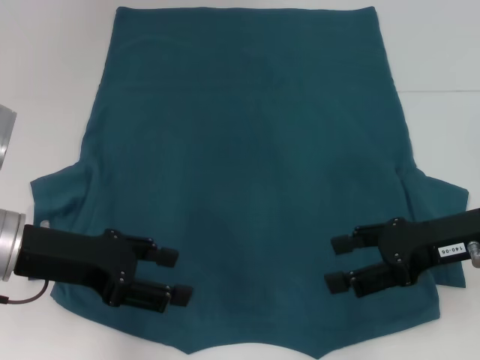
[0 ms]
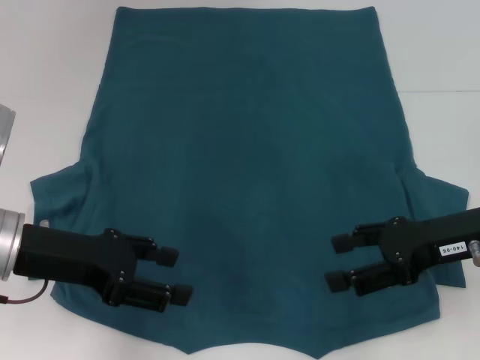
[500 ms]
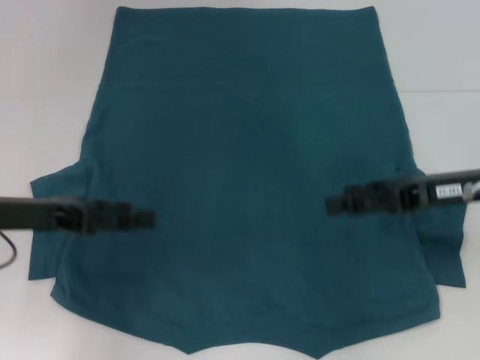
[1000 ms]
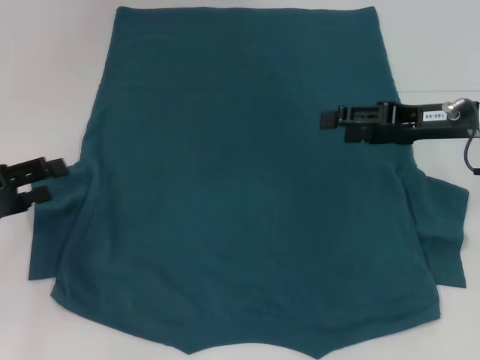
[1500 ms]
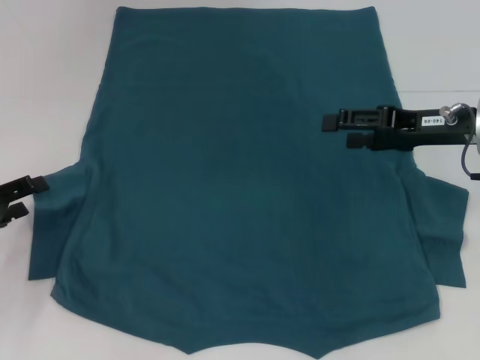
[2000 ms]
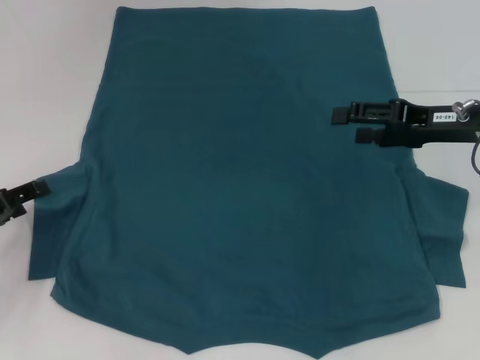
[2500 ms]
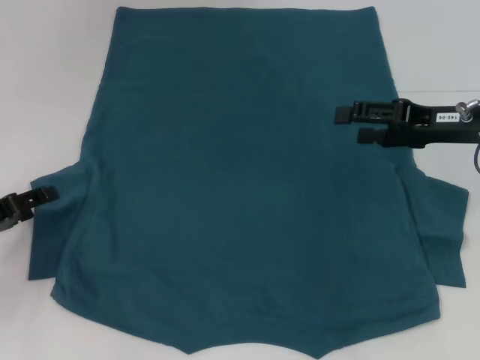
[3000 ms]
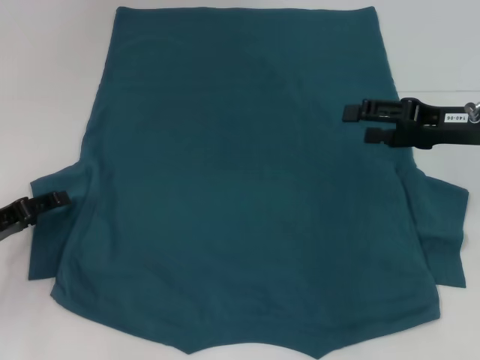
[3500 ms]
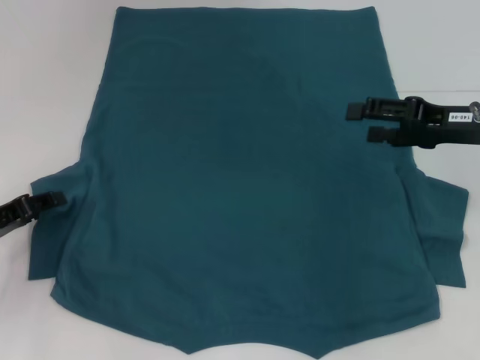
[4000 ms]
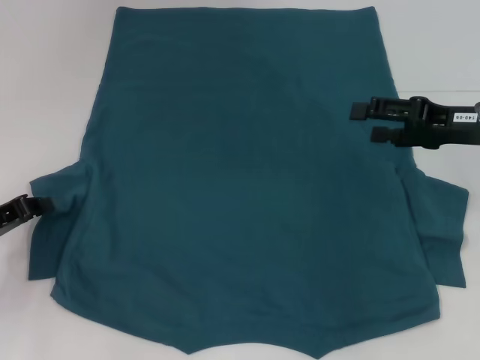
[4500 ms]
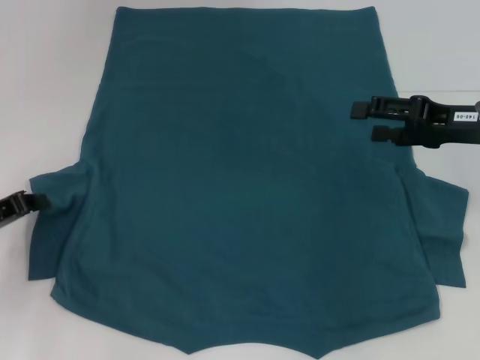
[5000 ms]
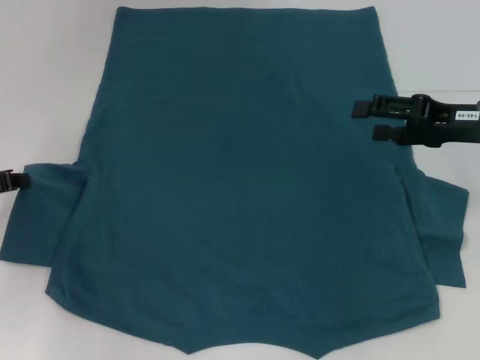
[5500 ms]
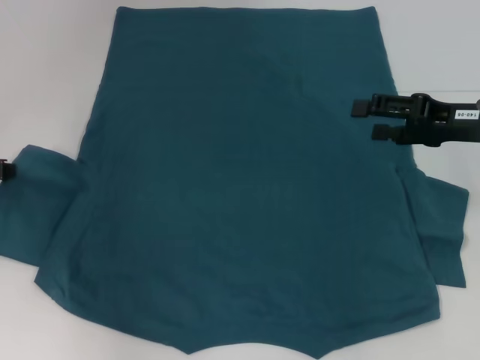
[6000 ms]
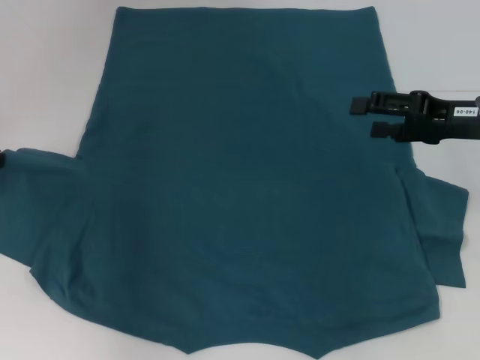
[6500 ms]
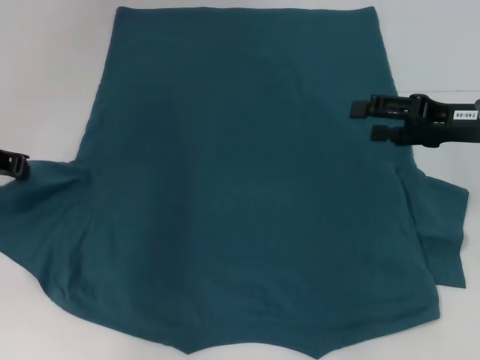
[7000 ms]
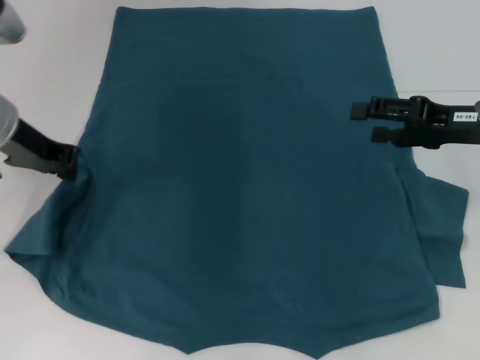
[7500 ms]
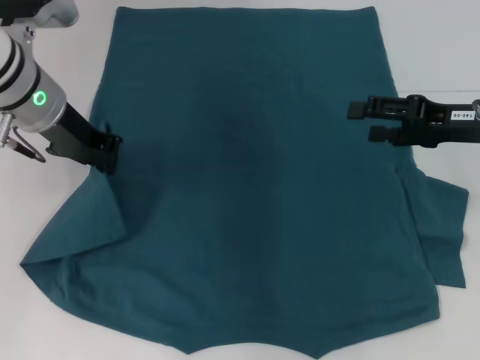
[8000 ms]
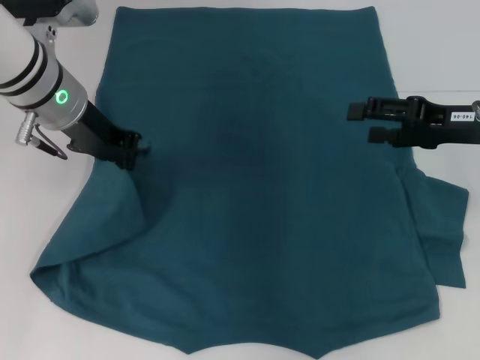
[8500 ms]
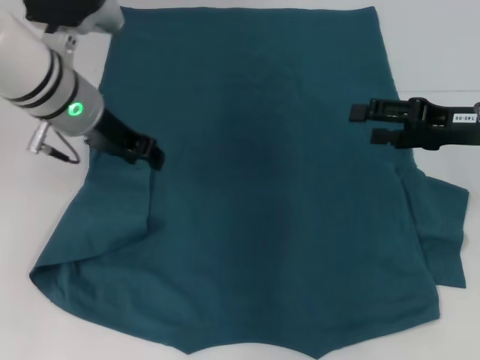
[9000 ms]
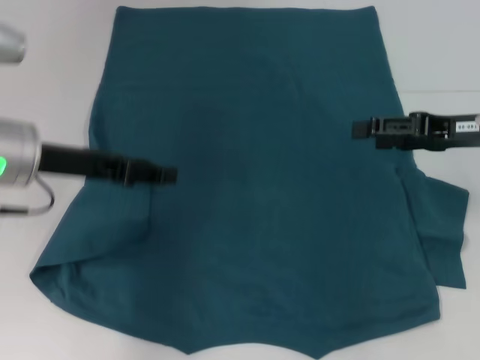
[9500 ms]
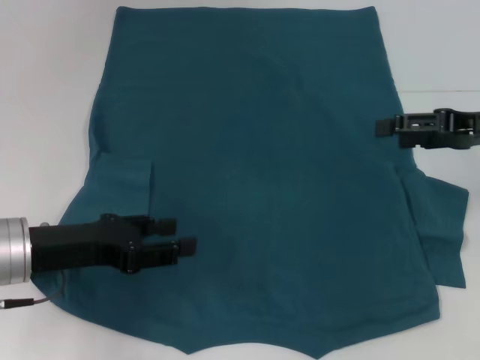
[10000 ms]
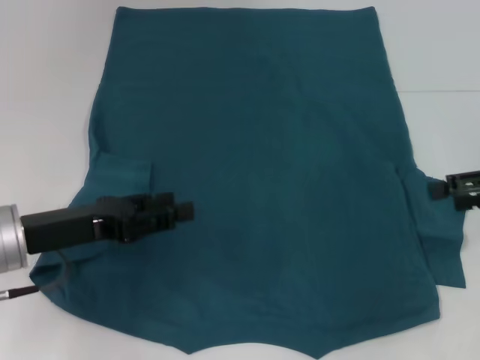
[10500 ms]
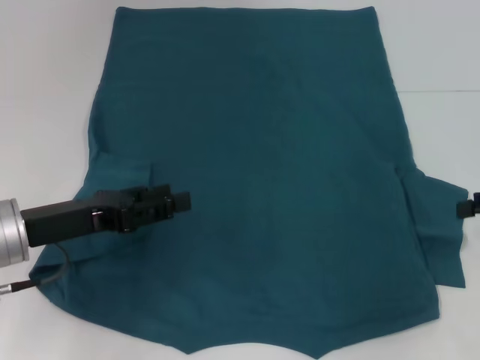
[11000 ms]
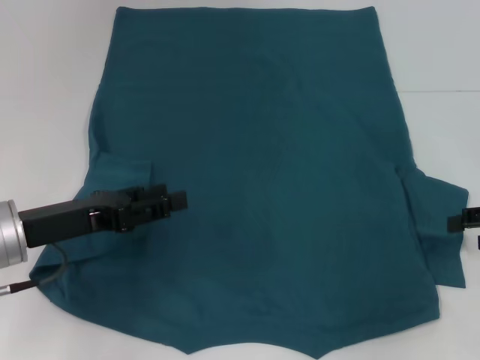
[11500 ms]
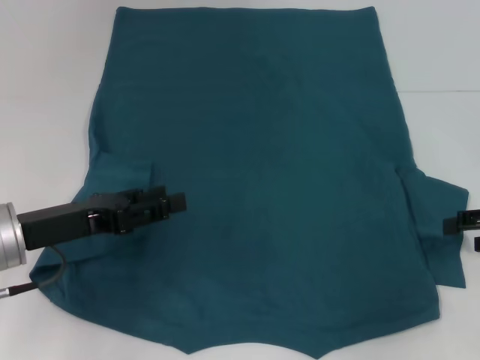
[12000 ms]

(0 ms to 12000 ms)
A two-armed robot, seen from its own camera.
Step, 0 ms - 8500 ms: Fold the bottom left sleeve with your left hand.
0 ms - 2000 ms: The left gripper heads to the left and downward, covering about 15 cm. The right gripper shifts approximately 10 cm forward.
2000 ms - 4000 ms: The grippers stay close to where they were, moving slightly.
4000 ms - 6000 ms: The left gripper travels upward and forward by about 10 cm, and closes its fingers.
6000 ms - 8000 ms: The left gripper is displaced to the right and upward by approximately 15 cm.
8000 ms - 10000 ms: The left gripper moves backward and downward, about 15 cm, and opens its fingers.
10000 ms - 12000 ms: The right gripper travels to the right and backward by roughly 10 cm.

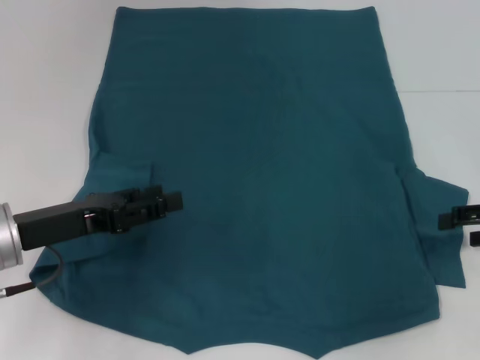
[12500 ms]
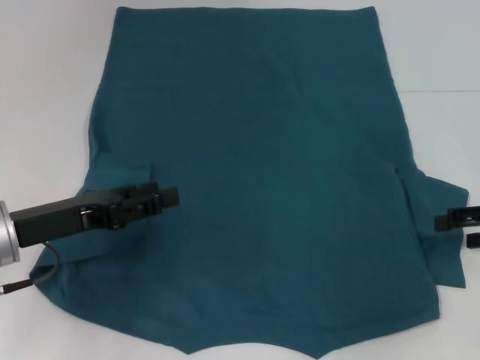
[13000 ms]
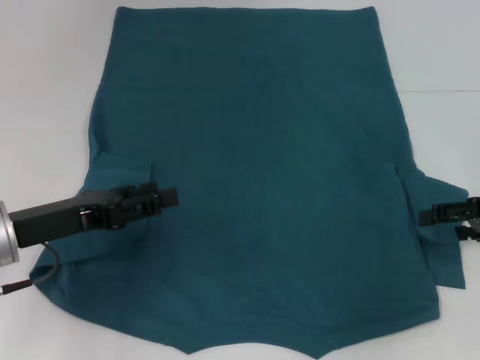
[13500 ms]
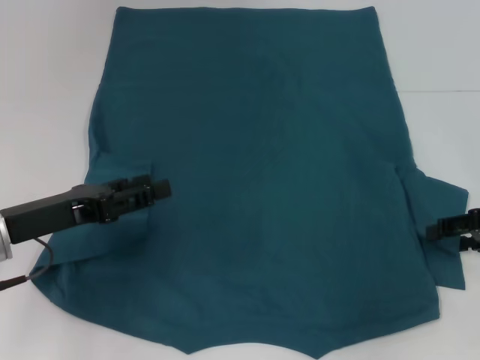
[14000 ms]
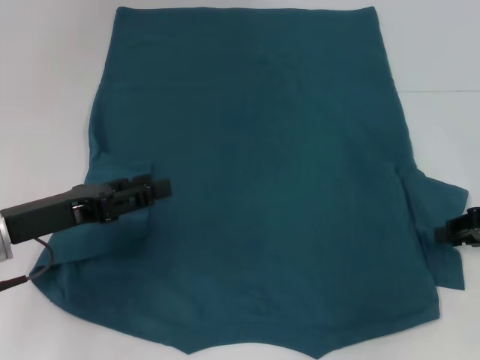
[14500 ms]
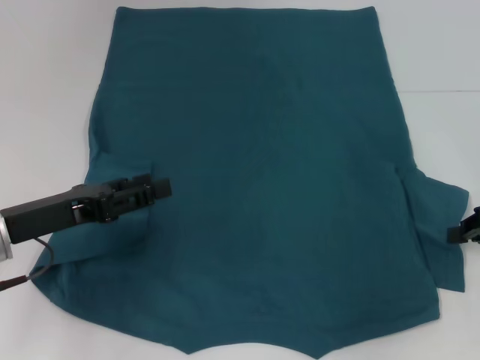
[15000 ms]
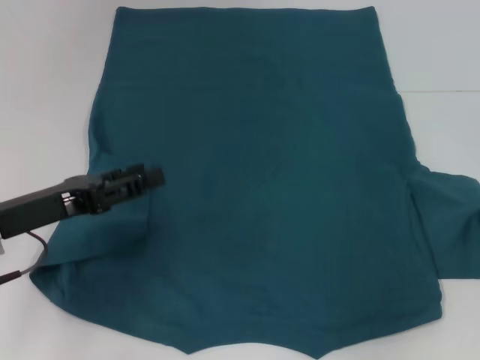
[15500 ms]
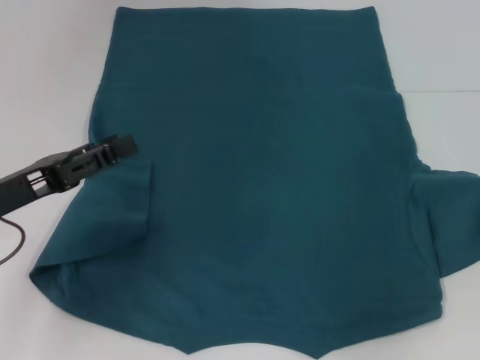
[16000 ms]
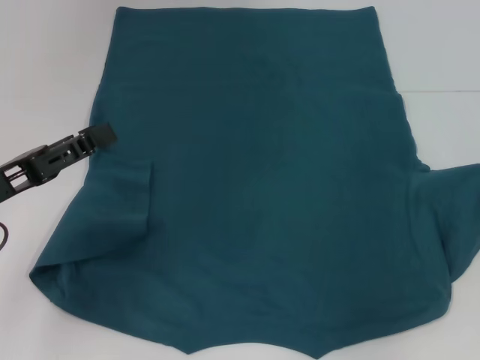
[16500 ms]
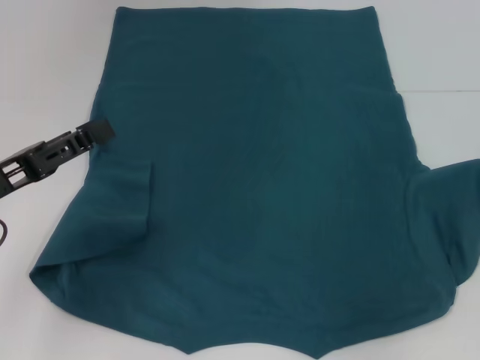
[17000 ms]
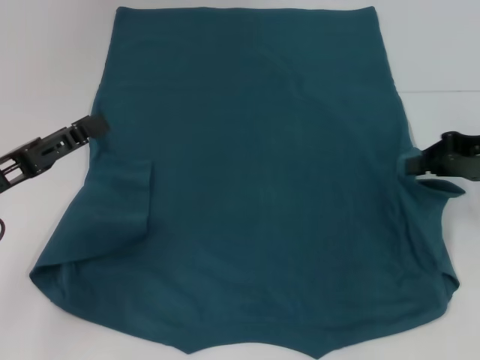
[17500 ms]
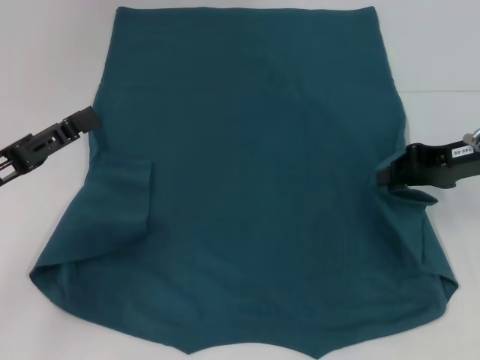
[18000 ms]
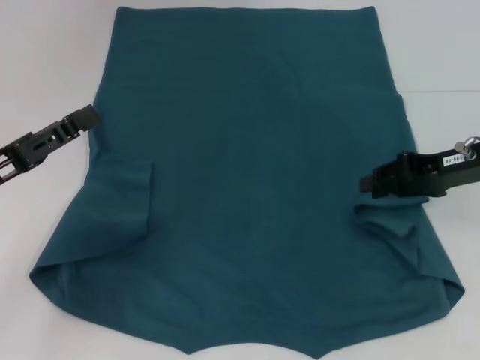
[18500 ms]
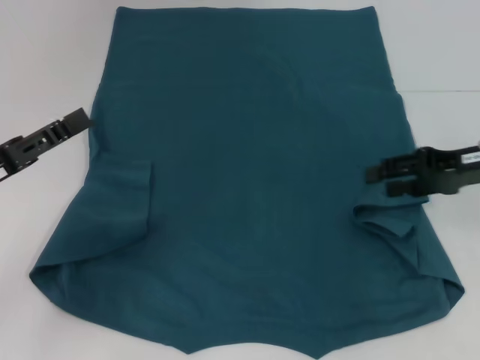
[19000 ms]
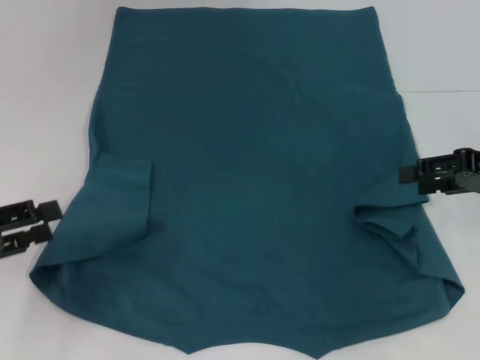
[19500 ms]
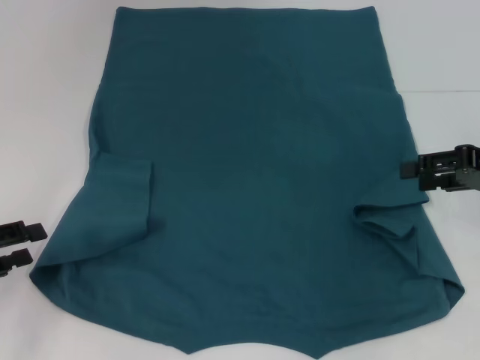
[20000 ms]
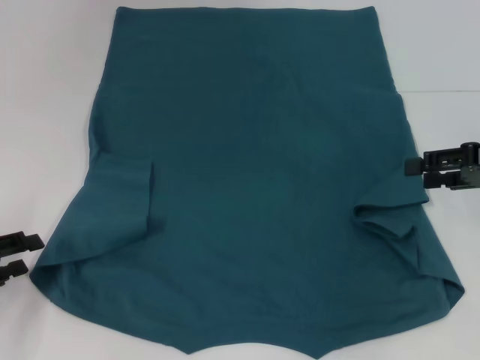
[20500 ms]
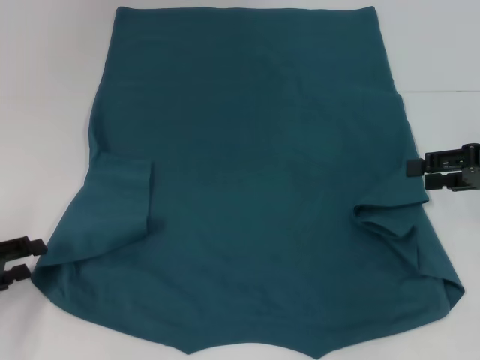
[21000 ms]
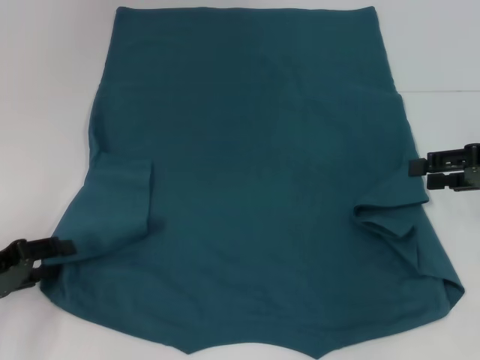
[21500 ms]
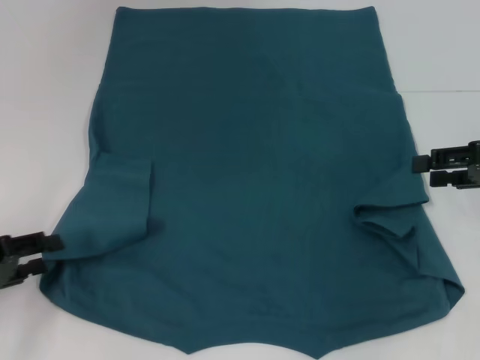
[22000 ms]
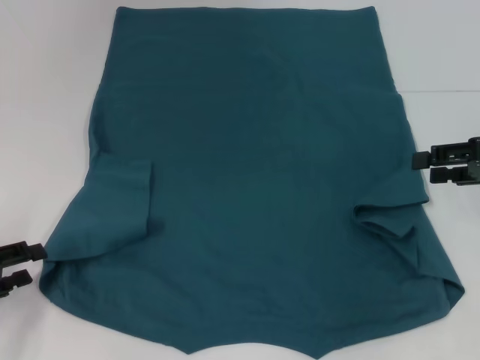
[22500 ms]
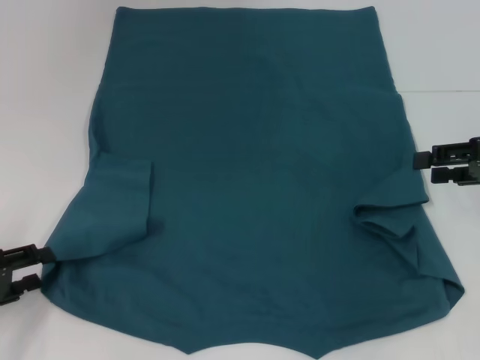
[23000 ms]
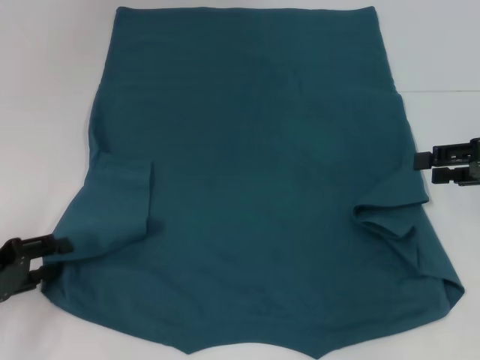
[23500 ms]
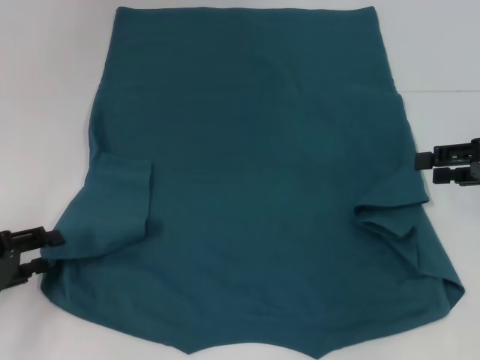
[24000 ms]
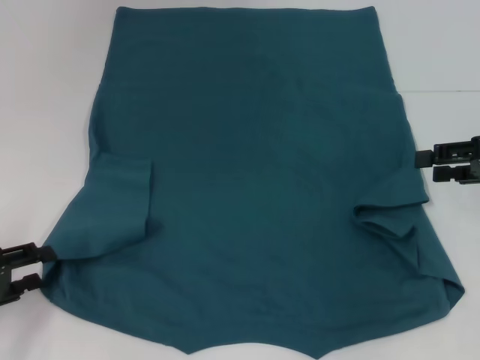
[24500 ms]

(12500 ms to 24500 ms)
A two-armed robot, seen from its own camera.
Step, 12500 ms - 19000 ms: Fold the bottom right sleeve to the right.
12500 ms - 14500 ms: The grippers make only small movements.
14500 ms - 16500 ms: The right gripper ends up some 5 cm from where it was, and closes its fingers.
16500 ms - 18500 ms: The right gripper is displaced to the left by some 10 cm.
18500 ms - 20500 ms: The right gripper is displaced to the right by some 5 cm, and opens; the left gripper moves to the left and downward, some 10 cm.
20500 ms - 24500 ms: There are only small adjustments of the grippers.

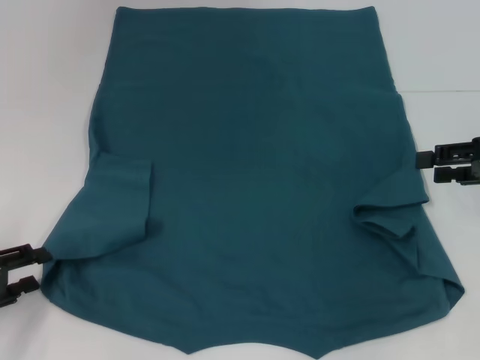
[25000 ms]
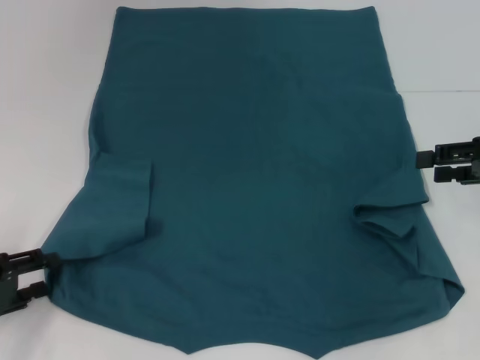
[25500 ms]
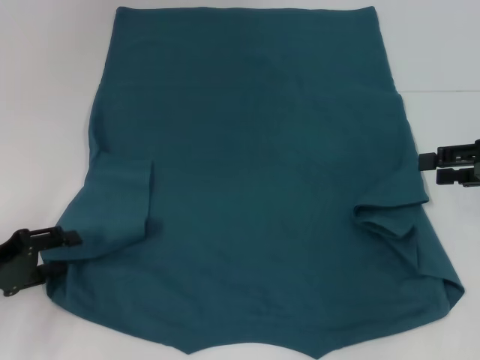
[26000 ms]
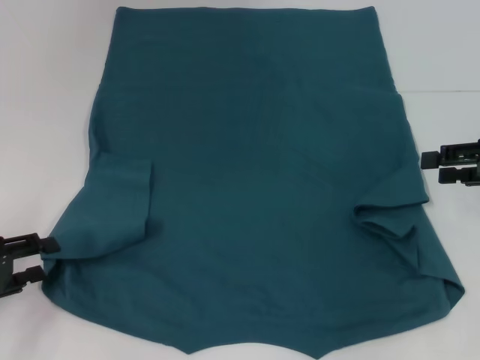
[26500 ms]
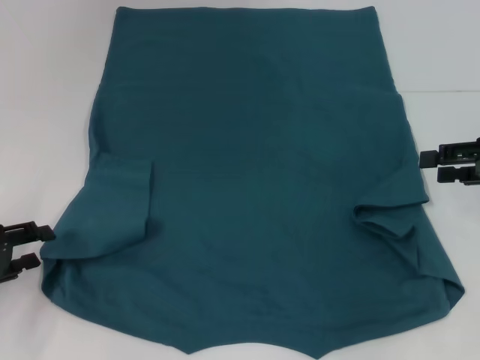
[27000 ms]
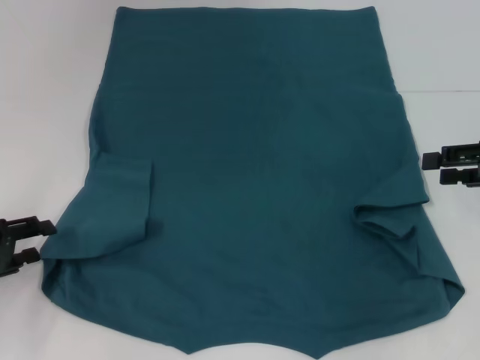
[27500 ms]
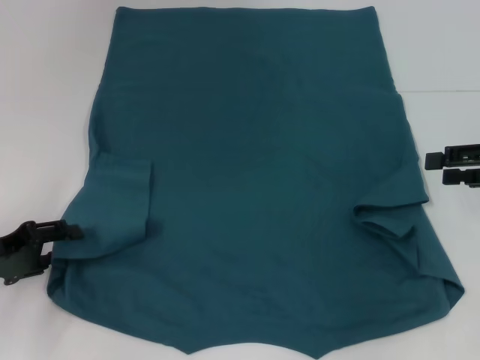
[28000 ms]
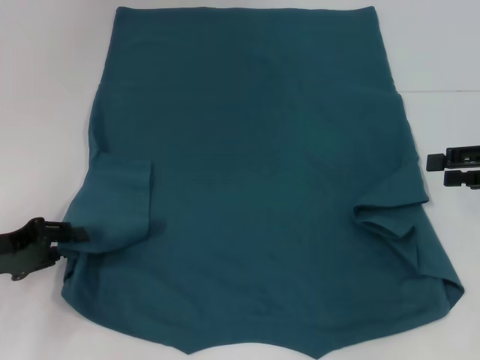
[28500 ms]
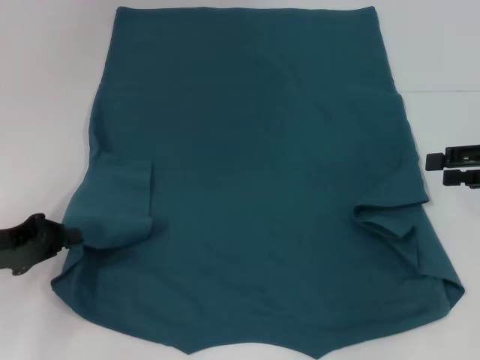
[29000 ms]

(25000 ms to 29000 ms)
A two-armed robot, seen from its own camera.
Step, 25000 ms - 29000 ms: Grab the bottom left corner with your left hand.
25000 ms - 27000 ms: The grippers make only small movements.
27000 ms - 29000 ms: The left gripper closes.
